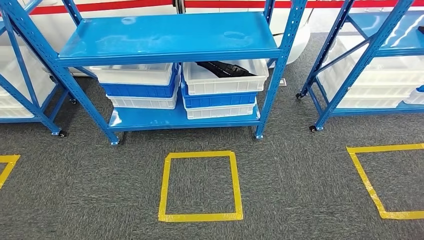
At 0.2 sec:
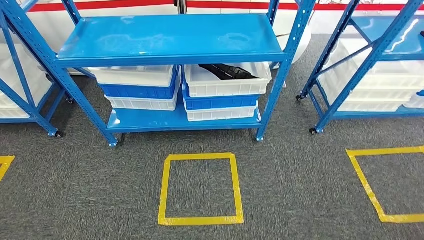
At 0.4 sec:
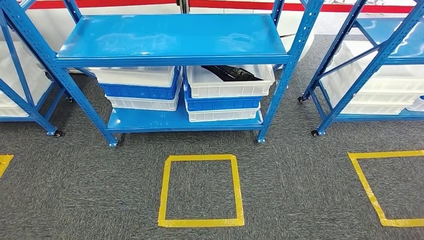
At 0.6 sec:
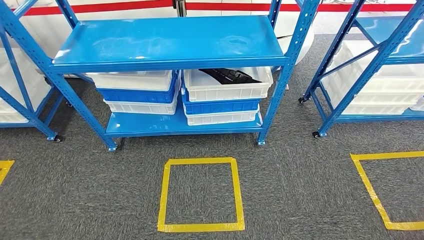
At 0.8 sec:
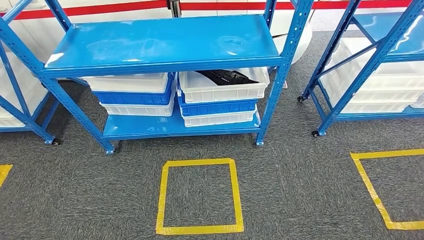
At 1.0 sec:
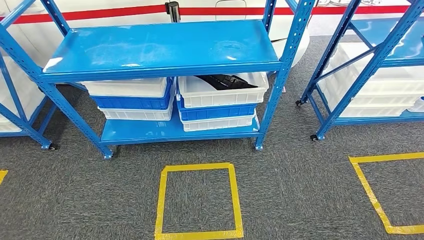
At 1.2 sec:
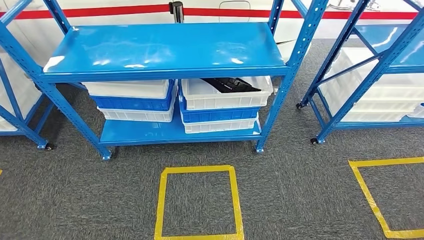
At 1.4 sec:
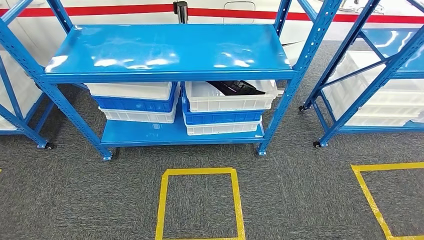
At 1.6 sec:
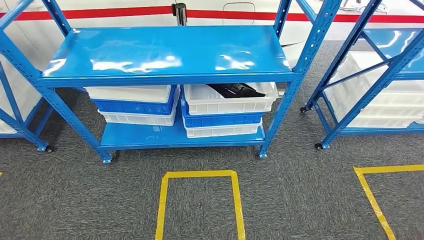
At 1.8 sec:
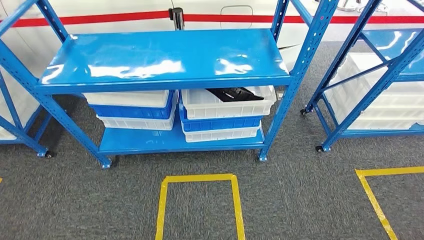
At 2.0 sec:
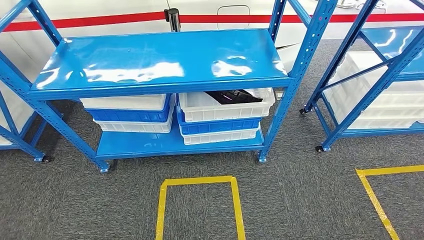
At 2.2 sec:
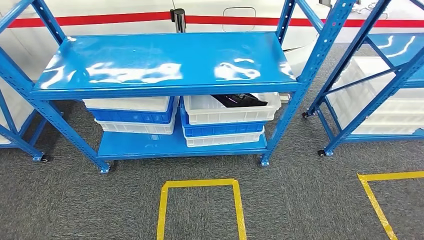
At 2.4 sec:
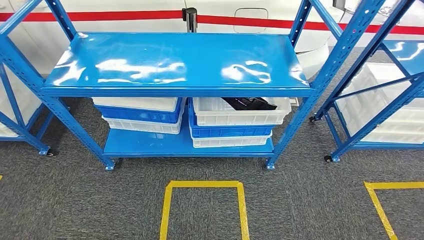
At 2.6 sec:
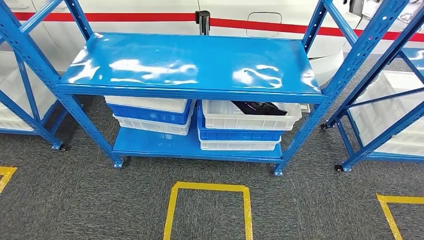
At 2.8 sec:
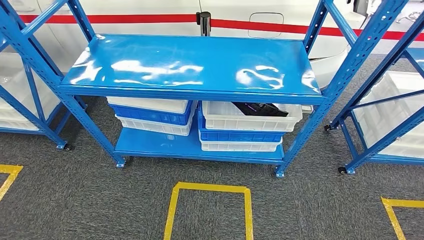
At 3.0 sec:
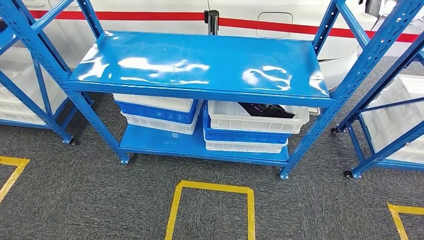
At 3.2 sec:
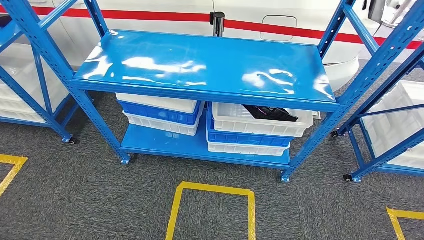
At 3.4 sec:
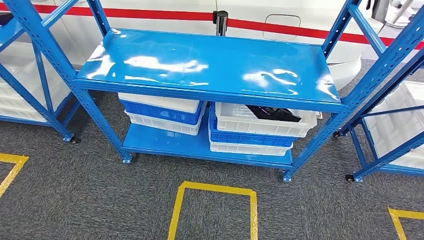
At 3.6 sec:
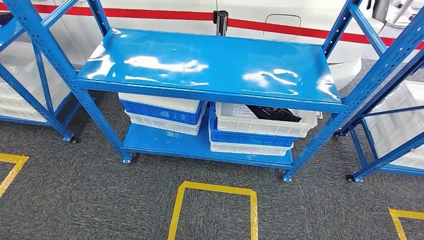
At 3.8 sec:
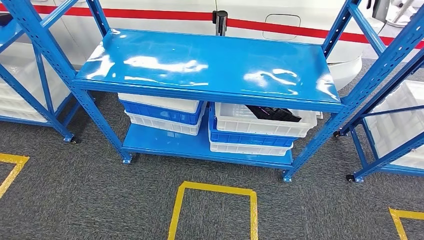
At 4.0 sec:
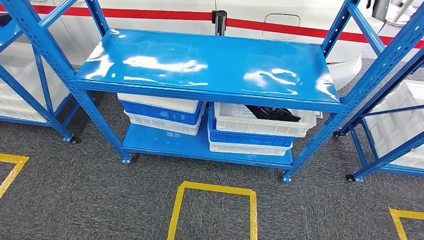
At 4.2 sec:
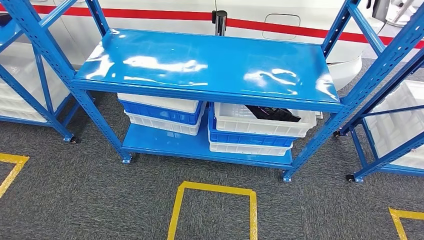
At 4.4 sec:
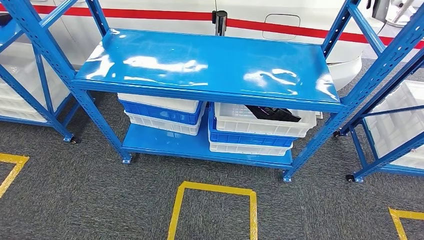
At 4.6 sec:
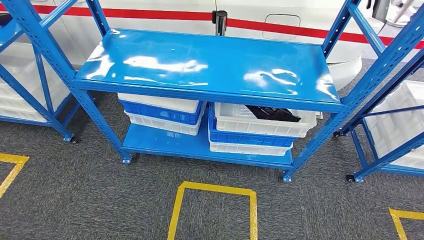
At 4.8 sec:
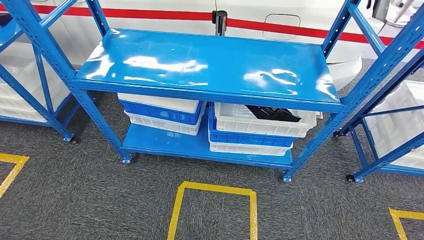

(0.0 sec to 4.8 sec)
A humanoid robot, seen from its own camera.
Step, 0.0 sec - 4.8 sec: Move to the initial position of the shelf.
3.2 sec - 4.8 sec: The left hand ends up about 5 cm from where it was; the right hand shifts by roughly 5 cm.
